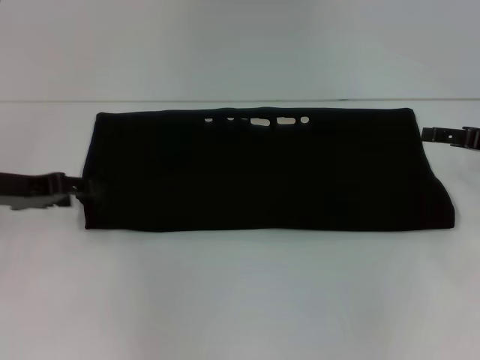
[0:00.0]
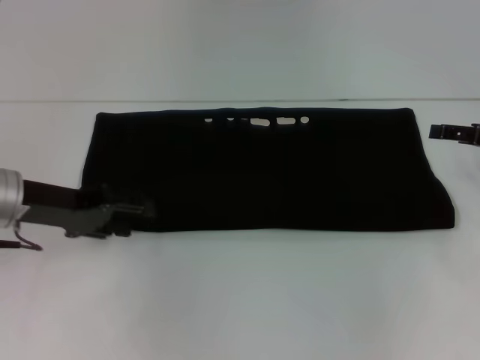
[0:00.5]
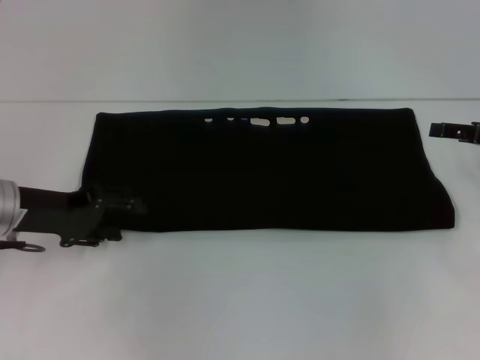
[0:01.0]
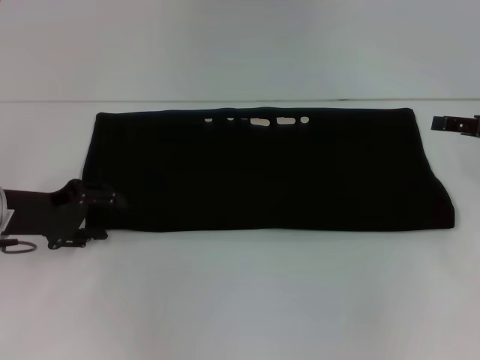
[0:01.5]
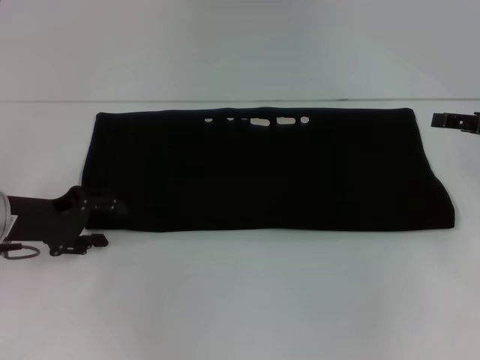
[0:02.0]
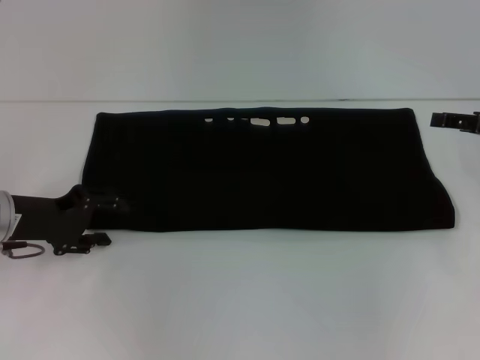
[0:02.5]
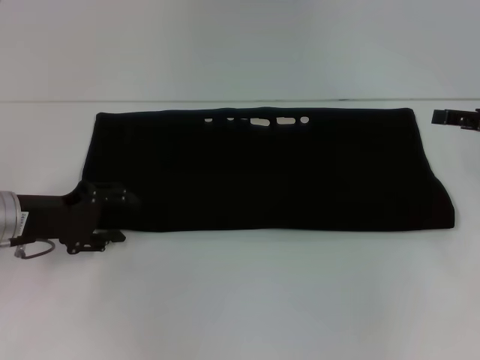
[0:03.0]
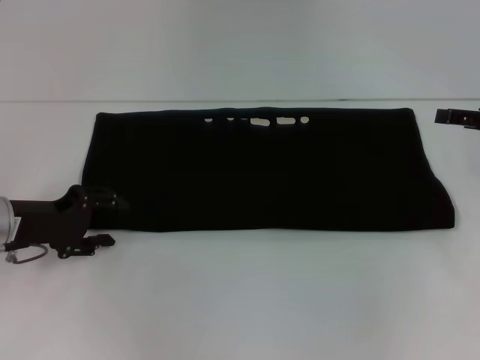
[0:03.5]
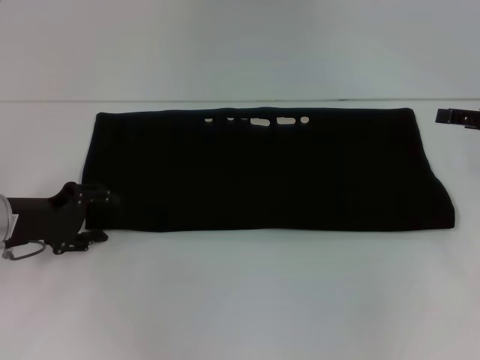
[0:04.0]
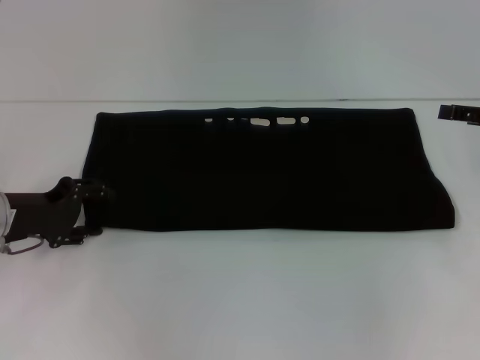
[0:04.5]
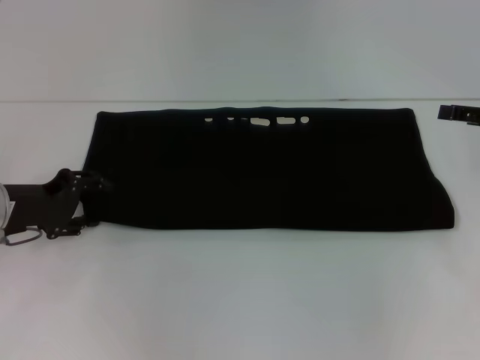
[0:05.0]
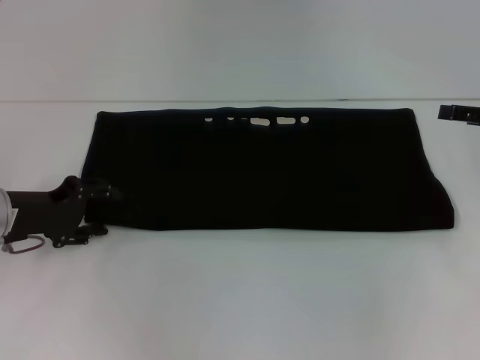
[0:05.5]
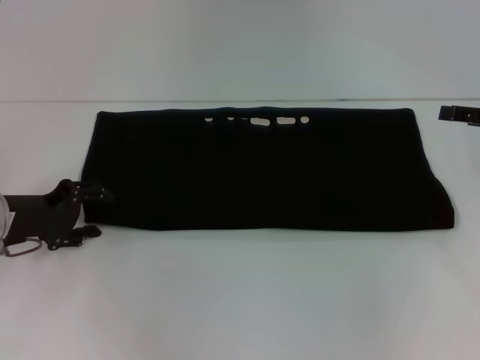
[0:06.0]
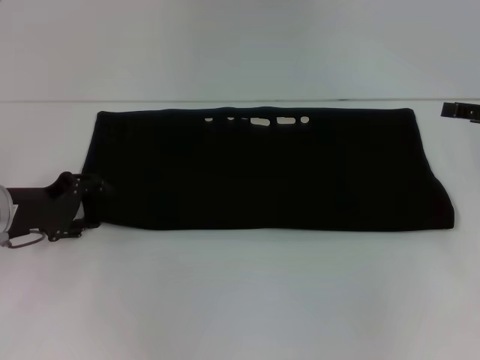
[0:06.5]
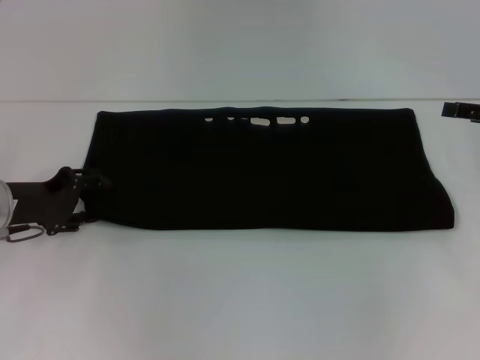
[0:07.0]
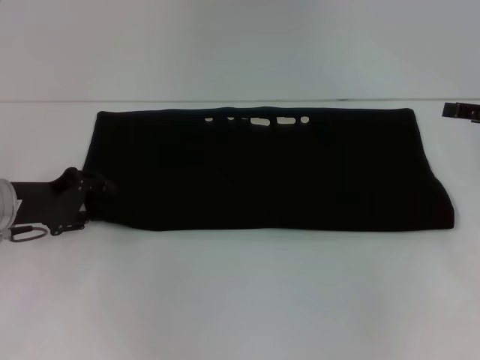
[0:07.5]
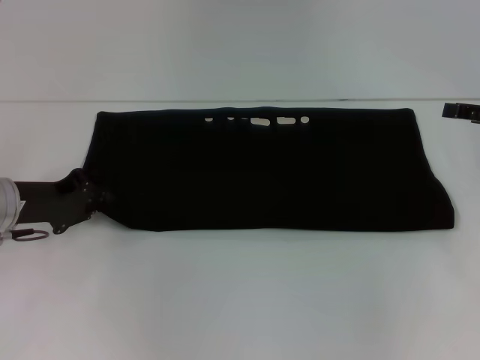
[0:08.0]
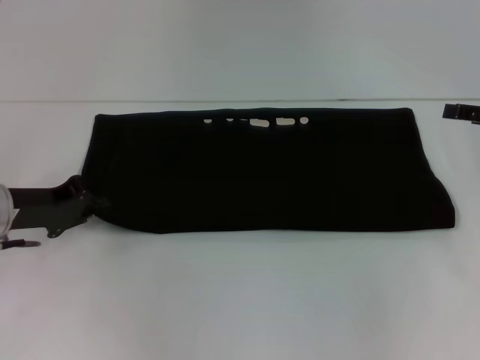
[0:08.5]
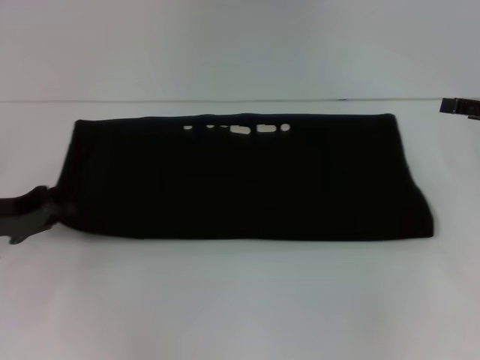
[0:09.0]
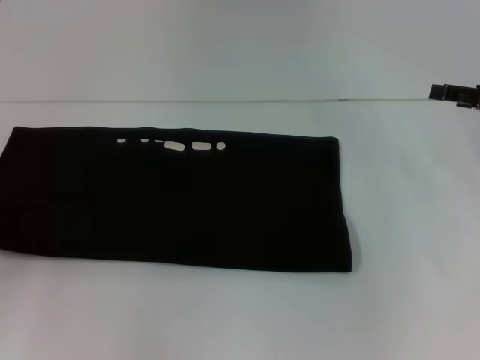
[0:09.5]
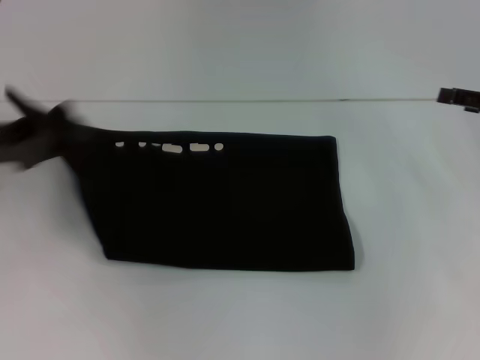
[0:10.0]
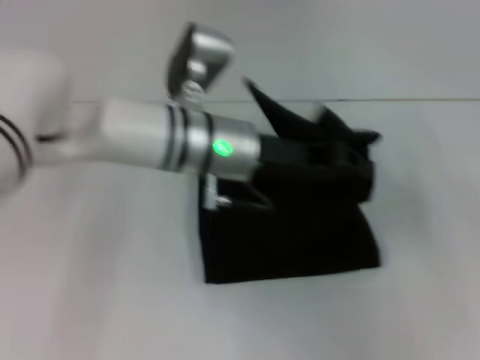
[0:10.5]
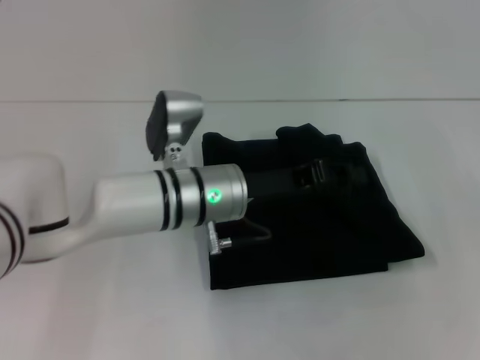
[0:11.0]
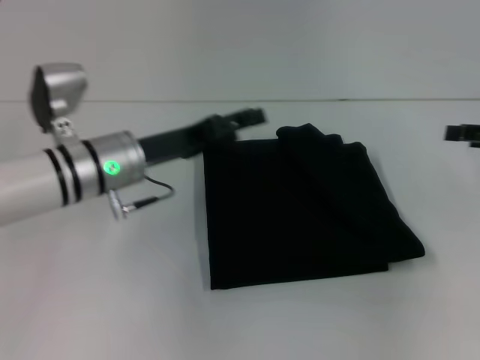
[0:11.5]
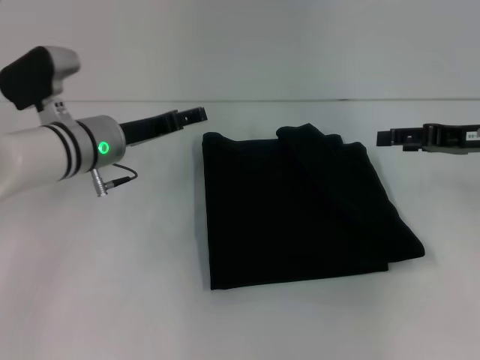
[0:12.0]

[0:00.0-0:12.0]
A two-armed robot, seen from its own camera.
Step, 0:00.0 to 0:11.0: Fold the clothes with your left hand.
0:02.0 to 0:06.0: The grippers stay close to where they were, moving slightly.
0:06.0 to 0:08.0: The left gripper closes.
0:08.0 to 0:10.0: The left gripper shifts roughly 10 cm upward, and travels to the left and back again, some 10 cm each way.
0:10.0 to 0:12.0: The left gripper is displaced to the right, downward and forward by some 15 cm, and opens up; the right gripper goes approximately 5 cm to the left.

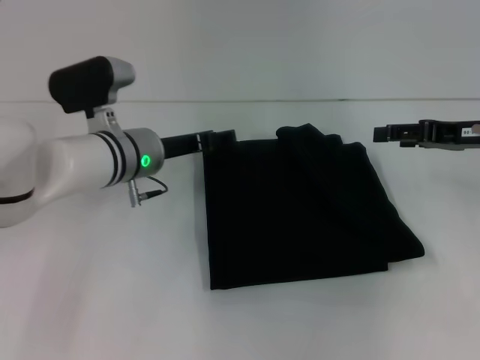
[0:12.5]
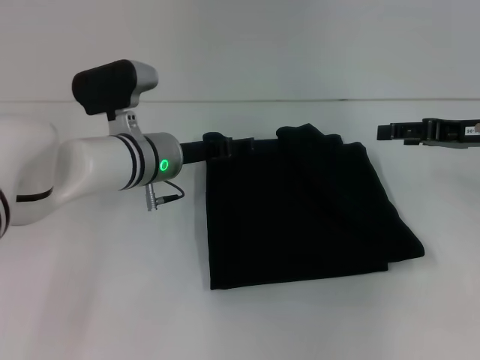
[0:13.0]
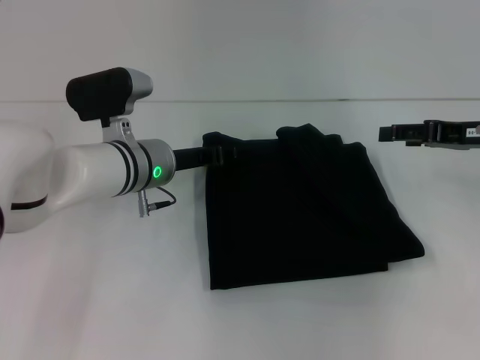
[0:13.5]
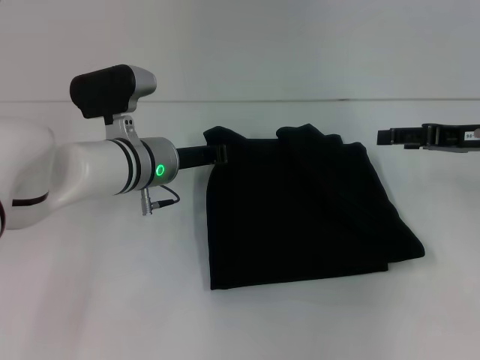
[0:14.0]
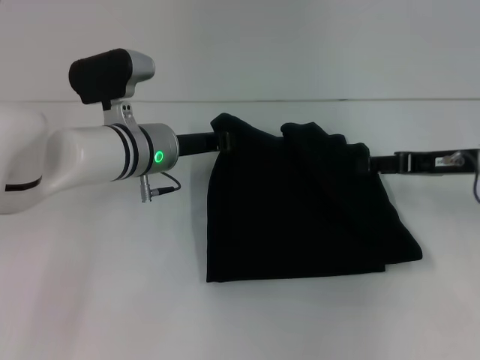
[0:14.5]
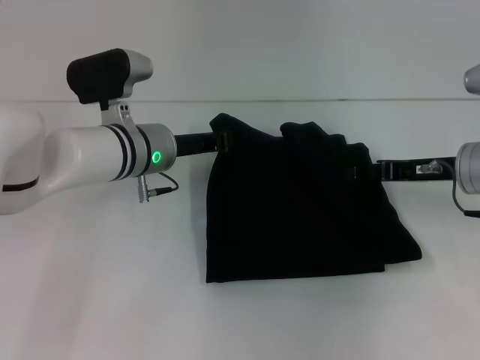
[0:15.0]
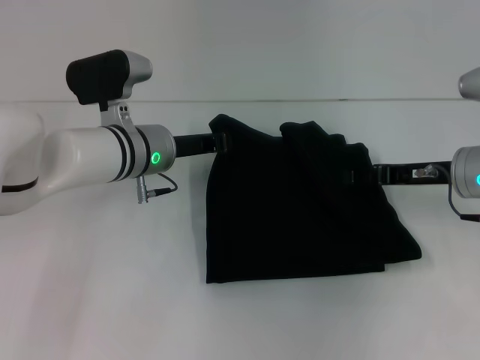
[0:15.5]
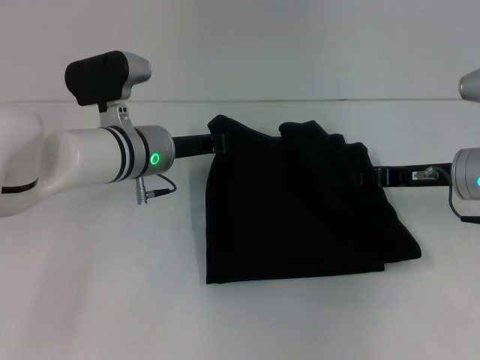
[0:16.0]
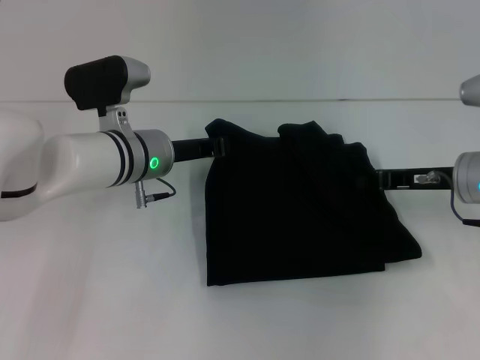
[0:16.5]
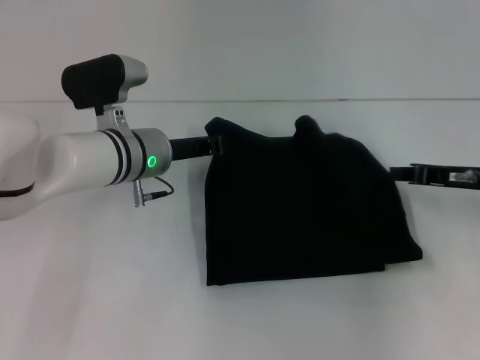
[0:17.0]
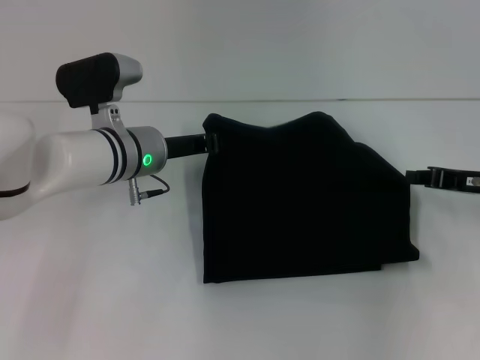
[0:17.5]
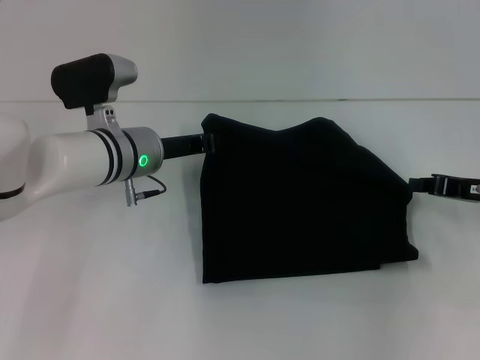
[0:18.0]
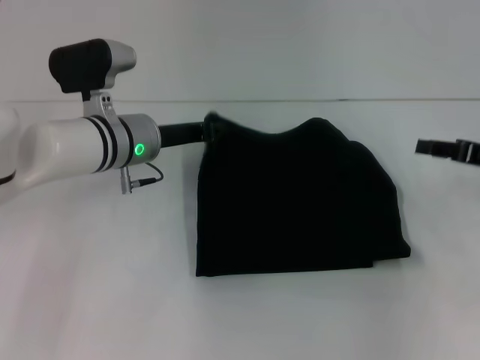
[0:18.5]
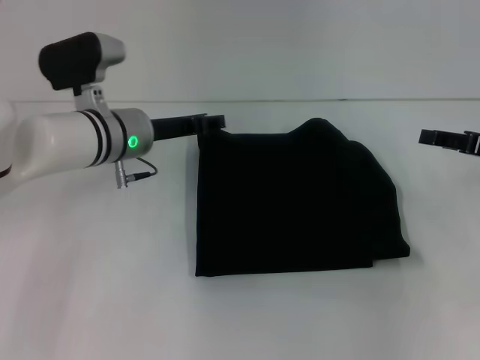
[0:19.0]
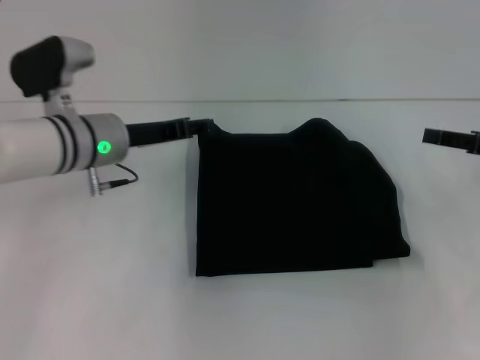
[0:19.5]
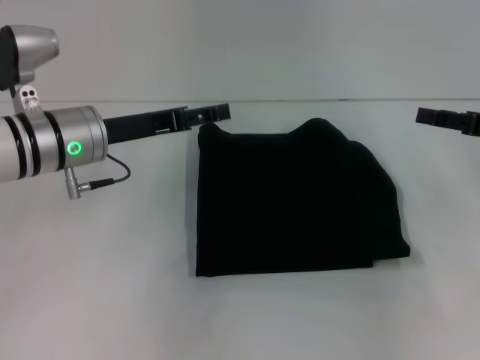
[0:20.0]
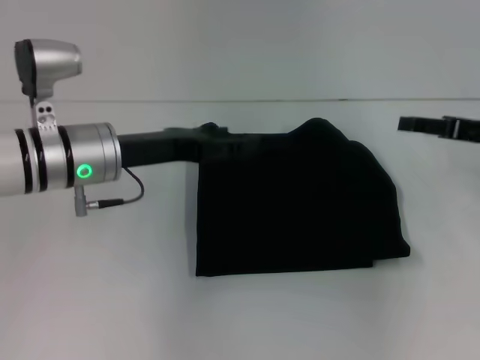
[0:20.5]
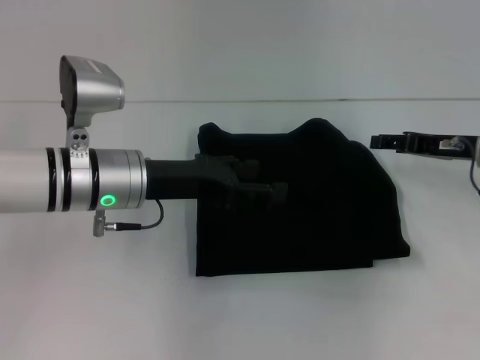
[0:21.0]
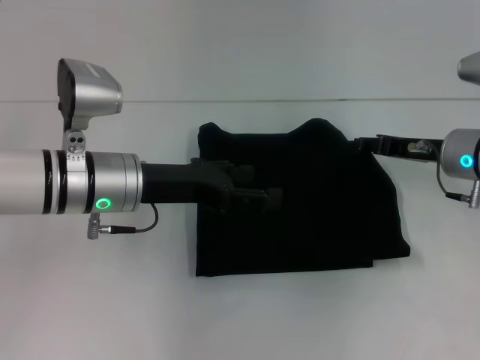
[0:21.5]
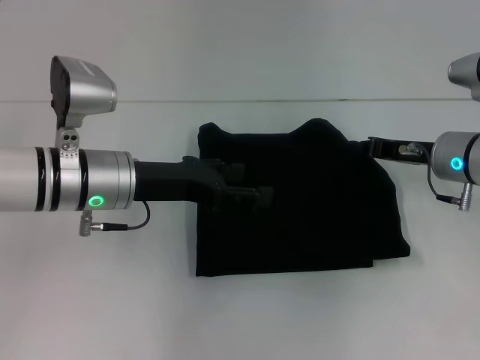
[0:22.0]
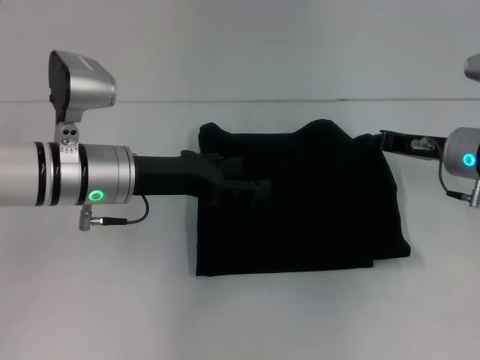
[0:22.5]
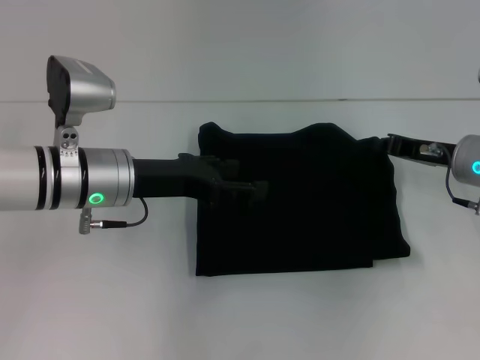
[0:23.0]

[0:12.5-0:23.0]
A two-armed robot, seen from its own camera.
0:12.5 to 0:14.5: The left gripper closes.
0:14.5 to 0:16.5: The right gripper closes.
0:16.5 to 0:19.0: The left gripper opens up; the right gripper goes some 10 cm to the right, and opens.
0:19.0 to 0:21.0: The right gripper heads to the left, covering about 5 cm, while the left gripper heads backward, covering about 5 cm, and opens up.
0:21.0 to 0:23.0: The right gripper closes up.

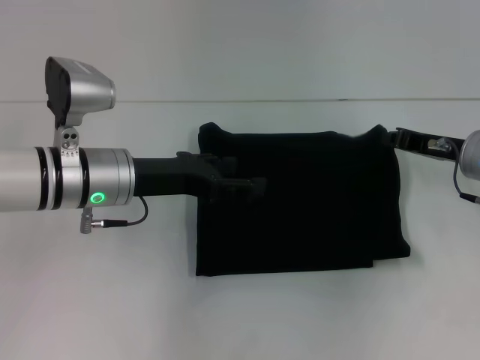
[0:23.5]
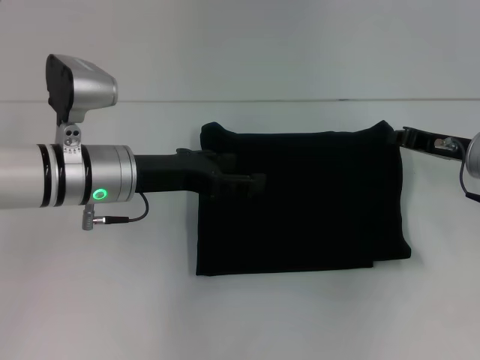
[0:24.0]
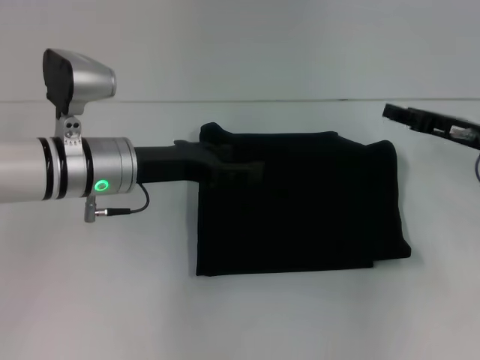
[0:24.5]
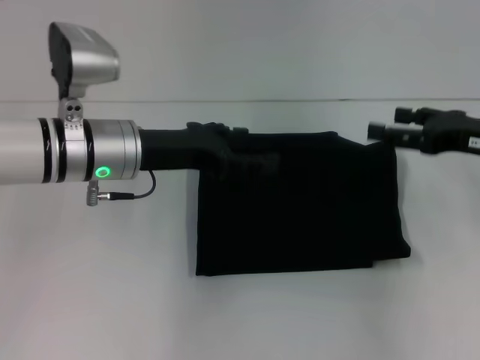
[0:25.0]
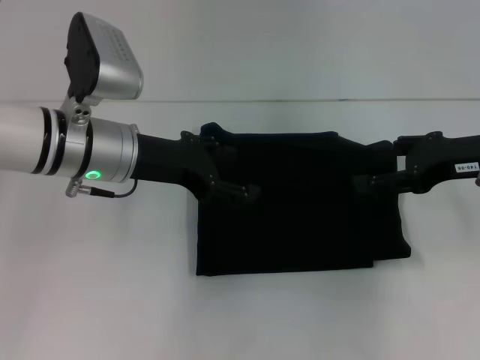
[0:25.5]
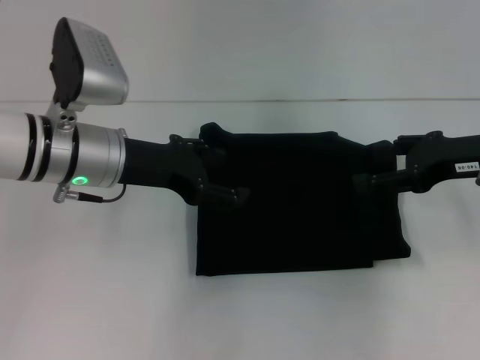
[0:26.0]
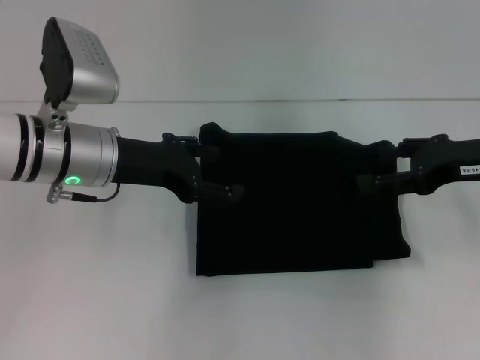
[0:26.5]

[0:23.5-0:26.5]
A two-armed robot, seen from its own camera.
0:23.5 to 0:25.0: The right gripper heads upward, covering roughly 5 cm, and opens.
